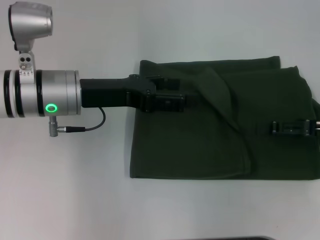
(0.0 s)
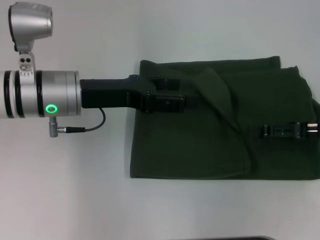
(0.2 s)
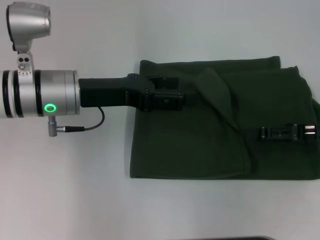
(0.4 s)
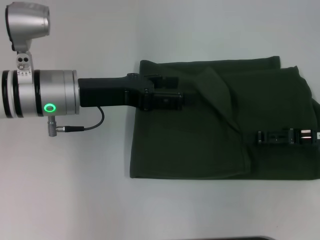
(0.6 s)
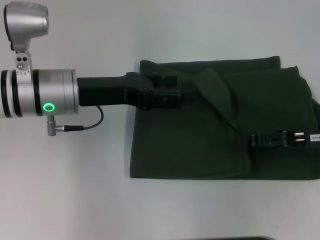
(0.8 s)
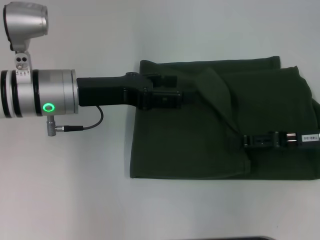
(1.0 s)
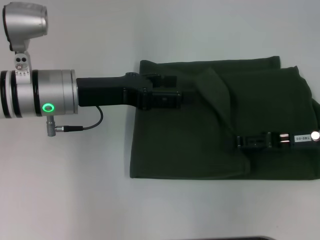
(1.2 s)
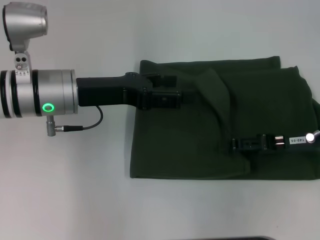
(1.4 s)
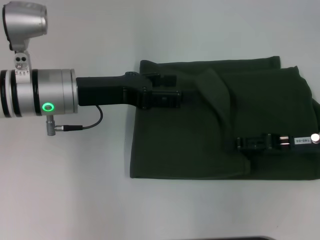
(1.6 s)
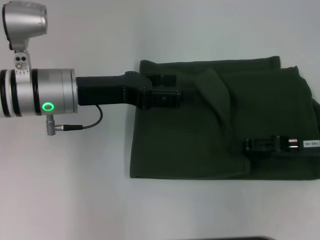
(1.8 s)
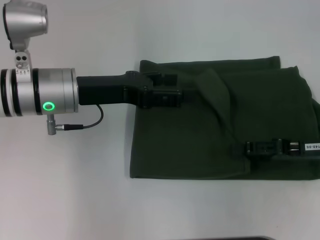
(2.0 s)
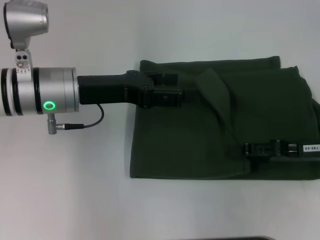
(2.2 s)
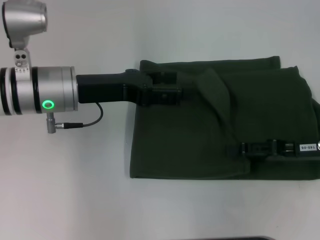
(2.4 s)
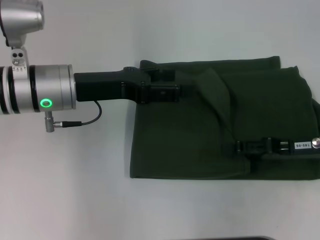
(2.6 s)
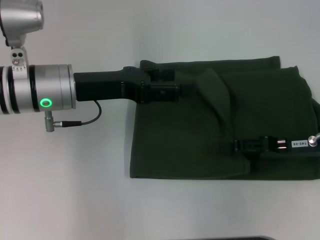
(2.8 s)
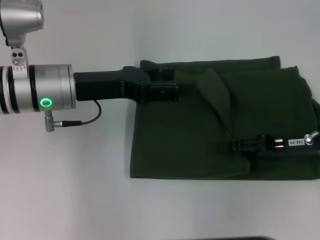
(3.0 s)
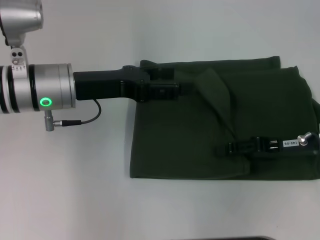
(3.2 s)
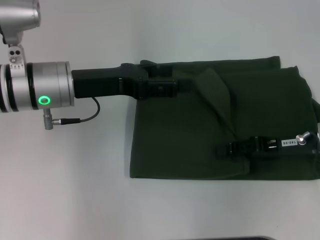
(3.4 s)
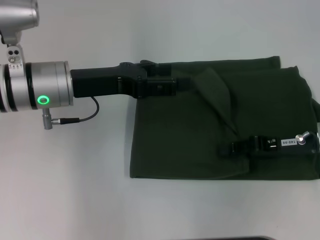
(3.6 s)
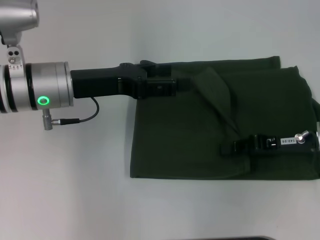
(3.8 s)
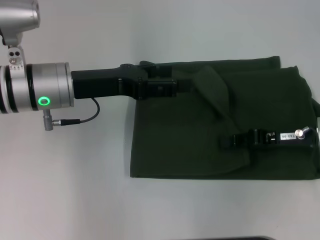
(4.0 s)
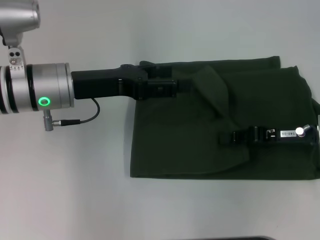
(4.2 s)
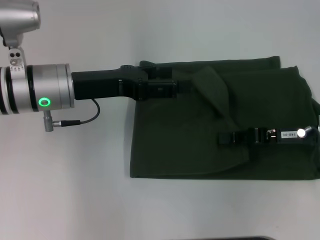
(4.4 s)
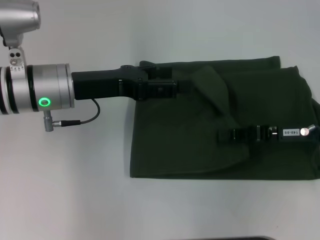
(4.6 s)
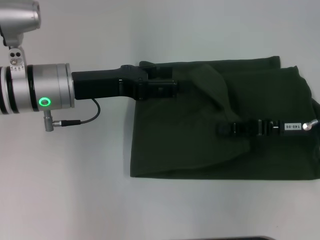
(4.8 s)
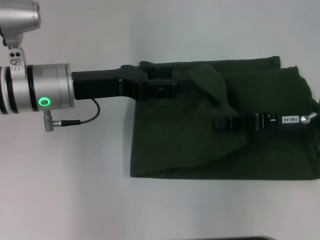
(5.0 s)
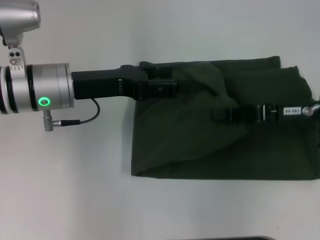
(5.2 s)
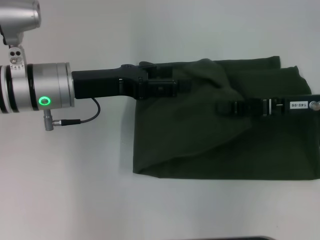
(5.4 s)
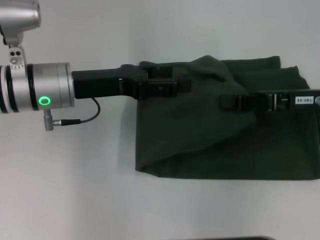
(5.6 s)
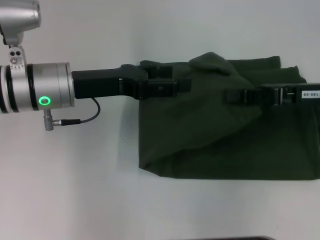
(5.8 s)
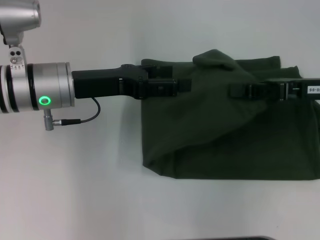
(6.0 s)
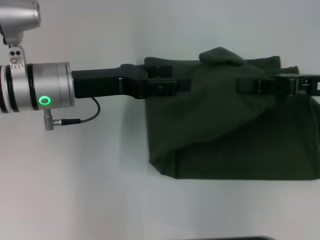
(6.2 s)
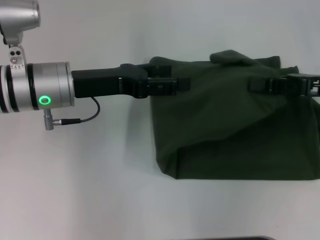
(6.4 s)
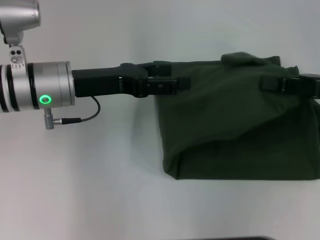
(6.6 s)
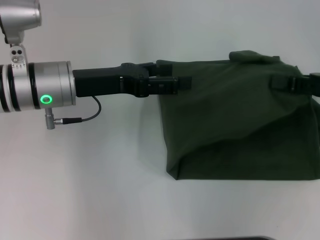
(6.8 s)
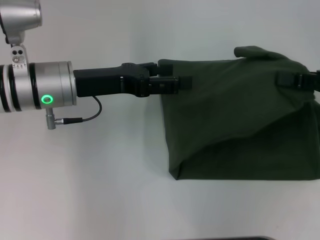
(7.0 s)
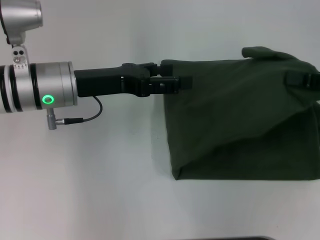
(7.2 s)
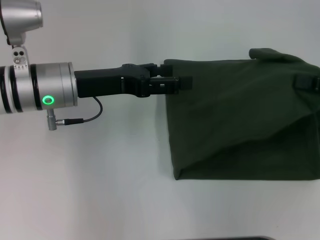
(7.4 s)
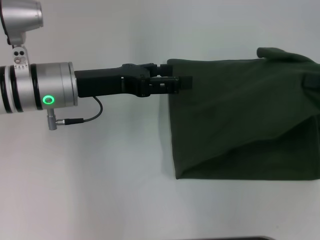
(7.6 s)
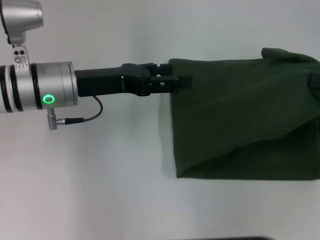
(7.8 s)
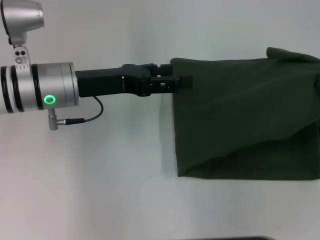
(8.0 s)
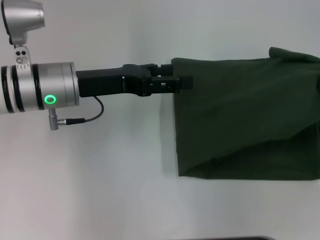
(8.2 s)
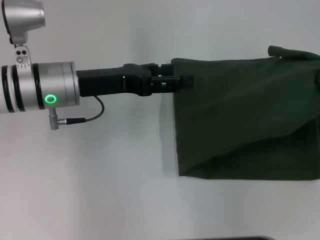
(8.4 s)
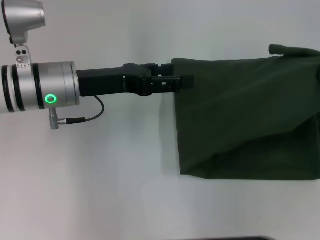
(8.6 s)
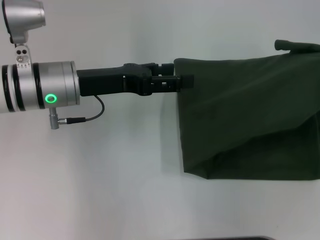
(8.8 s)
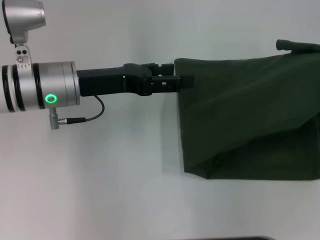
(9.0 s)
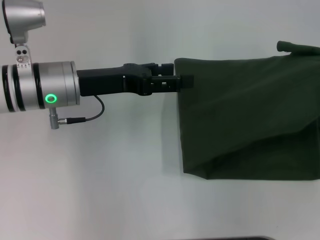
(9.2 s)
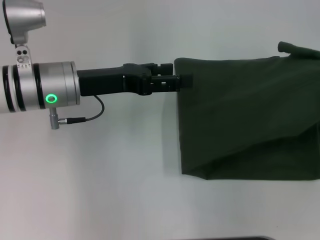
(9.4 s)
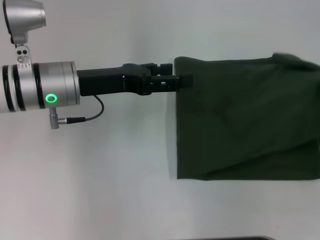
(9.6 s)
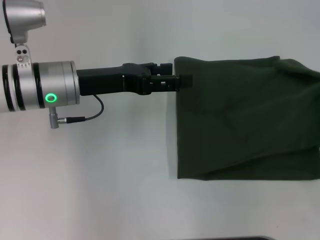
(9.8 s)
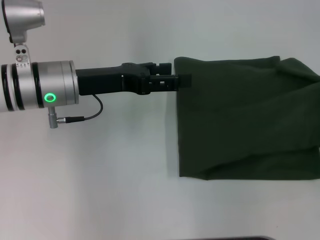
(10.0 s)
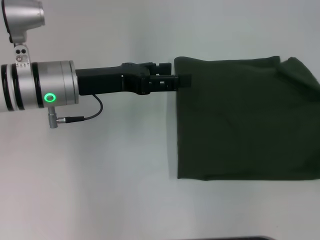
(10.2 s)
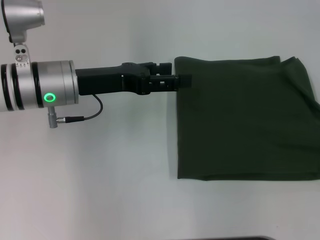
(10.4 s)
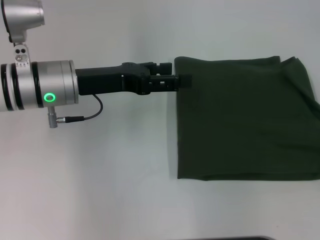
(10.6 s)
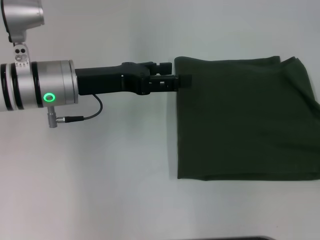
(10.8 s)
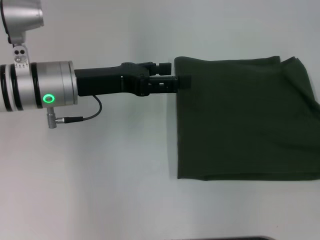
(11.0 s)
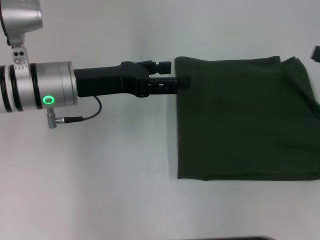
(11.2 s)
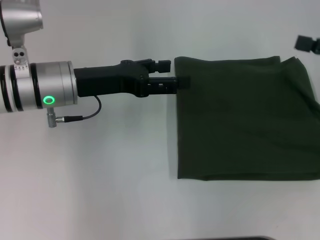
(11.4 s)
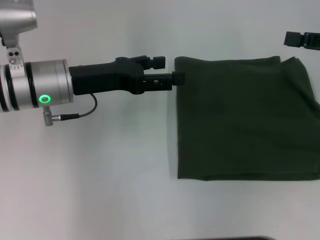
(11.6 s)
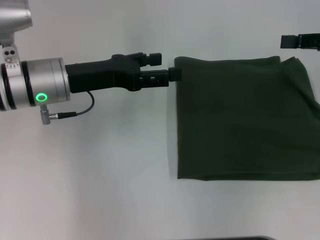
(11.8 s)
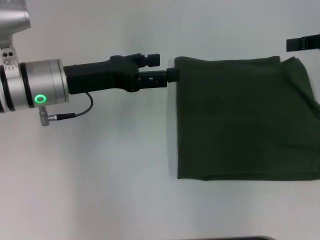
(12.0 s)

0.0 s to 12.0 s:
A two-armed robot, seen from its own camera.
0.0 to 1.6 s: The grippers stay close to where they were, moving slightly.
1.6 to 3.0 s: The two grippers keep their place.
3.0 to 4.4 s: The right gripper closes up.
4.4 to 6.0 s: The right gripper is displaced upward by about 5 cm.
6.0 to 7.6 s: The right gripper shifts roughly 10 cm to the right.
7.6 to 9.0 s: The grippers stay close to where they were, moving slightly.
9.0 to 10.4 s: The right gripper changes place by roughly 5 cm, and opens up.
10.4 to 12.0 s: The right gripper travels forward, to the left and upward by about 15 cm, and closes its fingers.

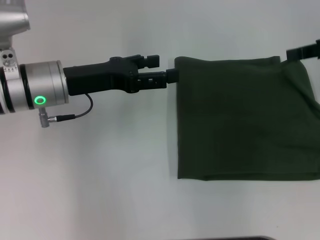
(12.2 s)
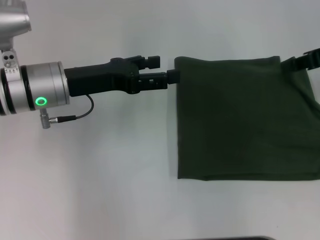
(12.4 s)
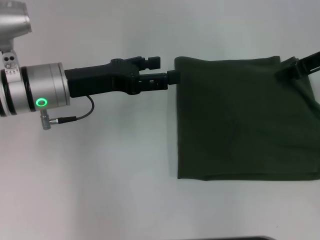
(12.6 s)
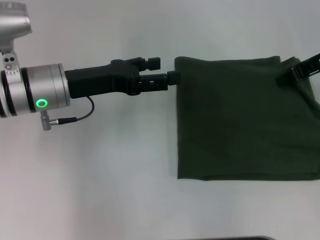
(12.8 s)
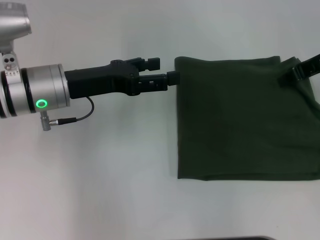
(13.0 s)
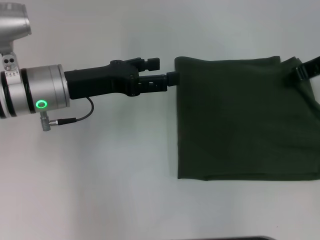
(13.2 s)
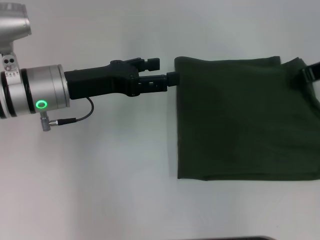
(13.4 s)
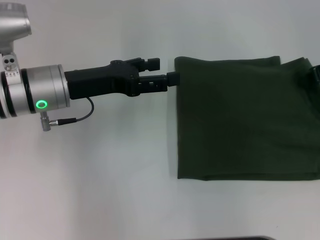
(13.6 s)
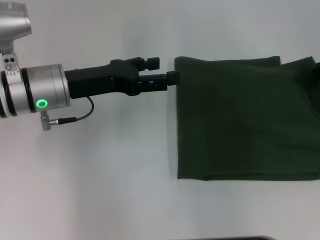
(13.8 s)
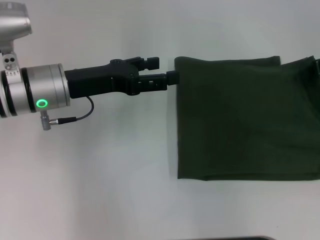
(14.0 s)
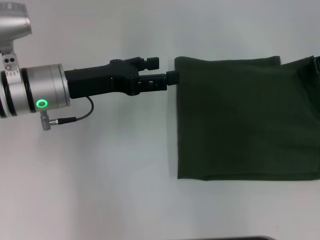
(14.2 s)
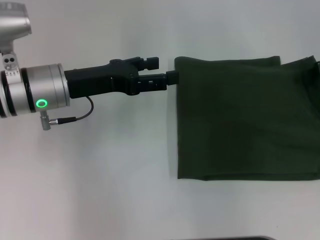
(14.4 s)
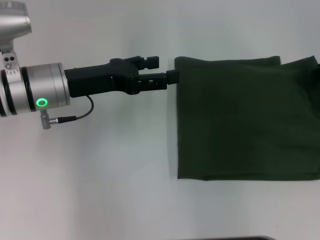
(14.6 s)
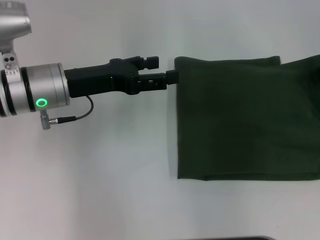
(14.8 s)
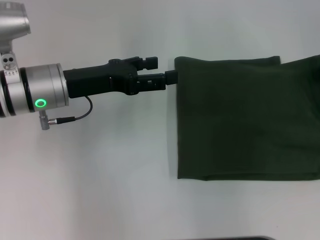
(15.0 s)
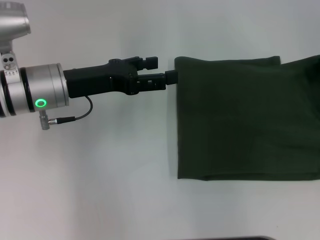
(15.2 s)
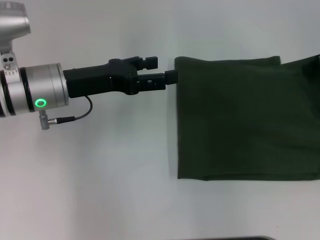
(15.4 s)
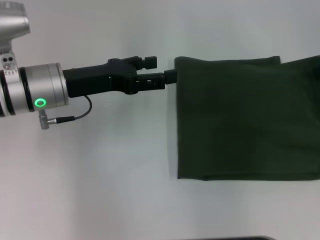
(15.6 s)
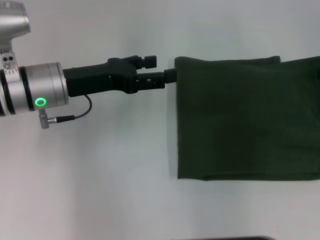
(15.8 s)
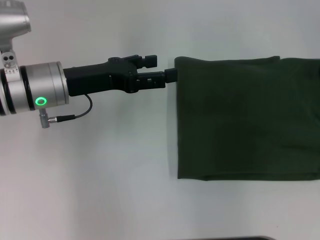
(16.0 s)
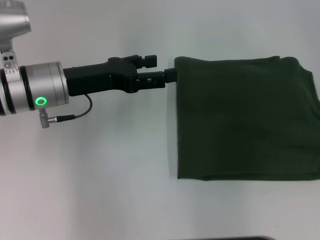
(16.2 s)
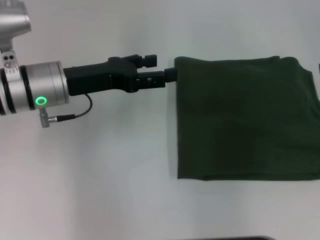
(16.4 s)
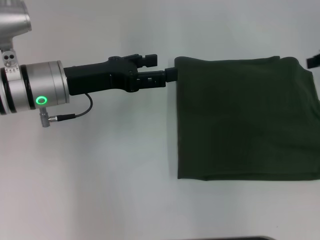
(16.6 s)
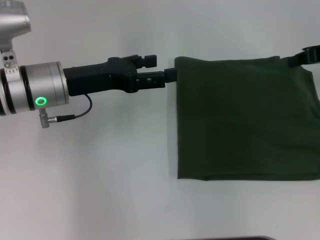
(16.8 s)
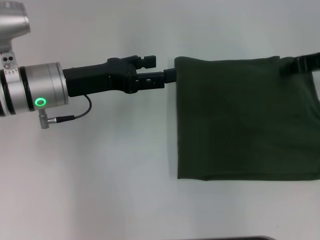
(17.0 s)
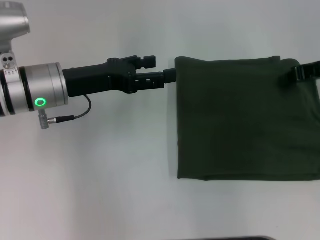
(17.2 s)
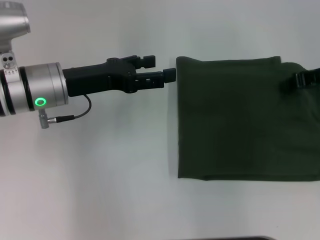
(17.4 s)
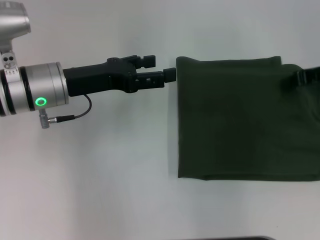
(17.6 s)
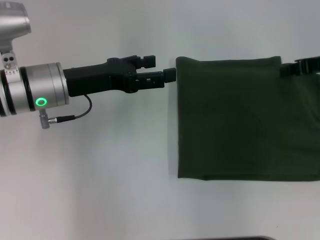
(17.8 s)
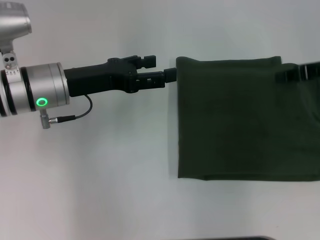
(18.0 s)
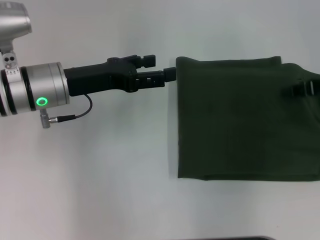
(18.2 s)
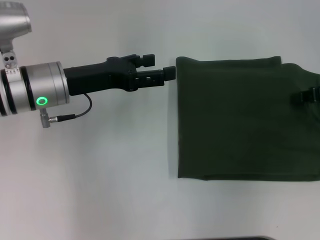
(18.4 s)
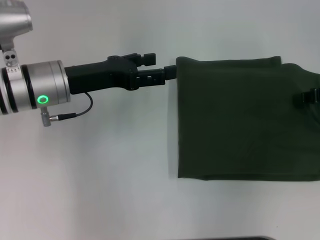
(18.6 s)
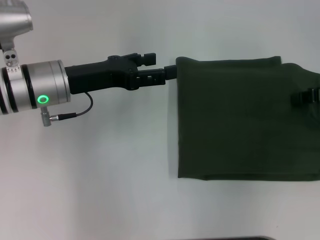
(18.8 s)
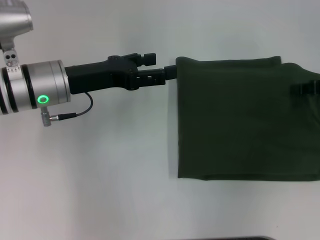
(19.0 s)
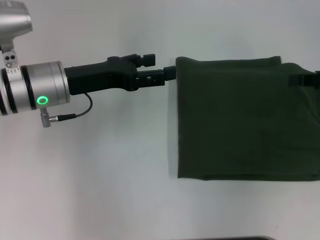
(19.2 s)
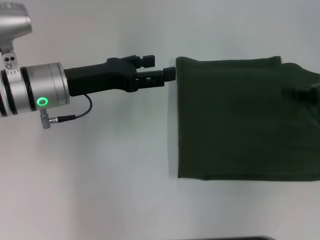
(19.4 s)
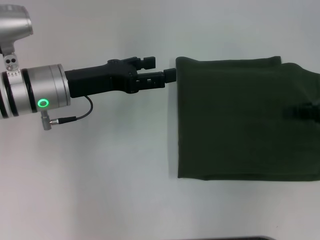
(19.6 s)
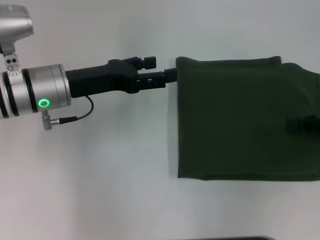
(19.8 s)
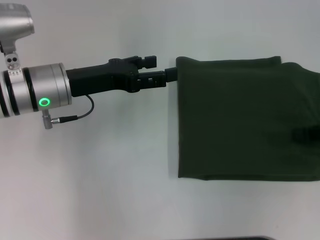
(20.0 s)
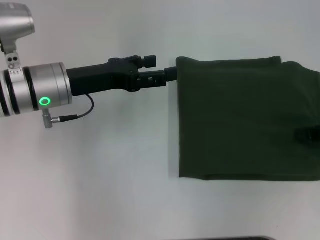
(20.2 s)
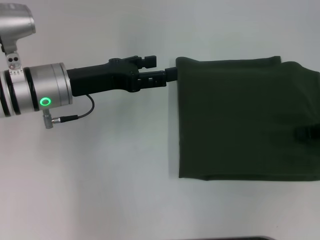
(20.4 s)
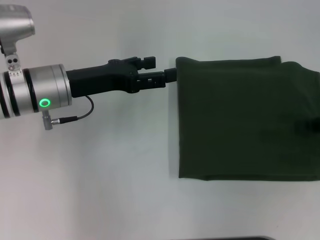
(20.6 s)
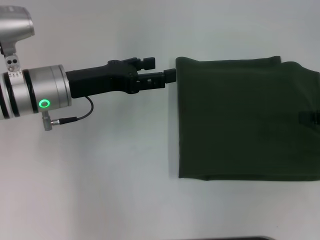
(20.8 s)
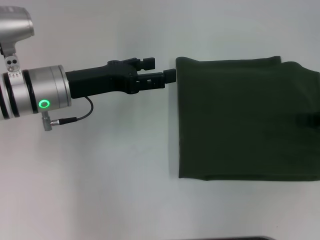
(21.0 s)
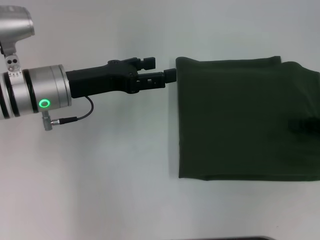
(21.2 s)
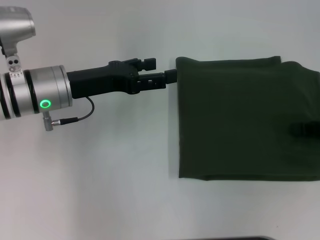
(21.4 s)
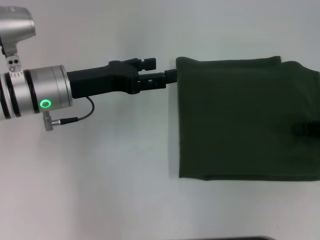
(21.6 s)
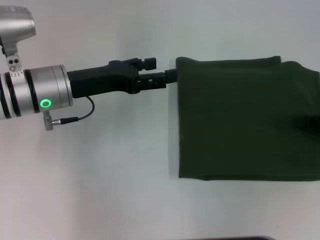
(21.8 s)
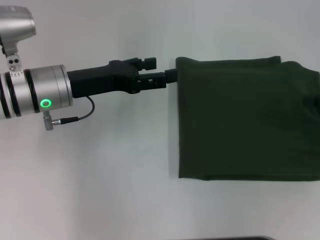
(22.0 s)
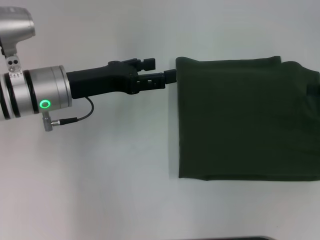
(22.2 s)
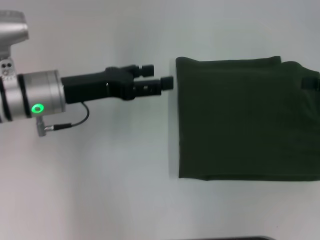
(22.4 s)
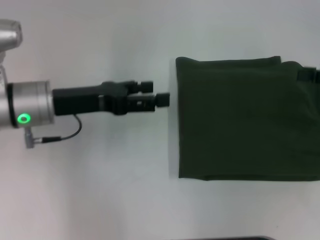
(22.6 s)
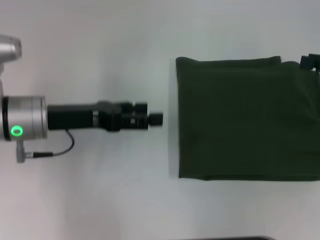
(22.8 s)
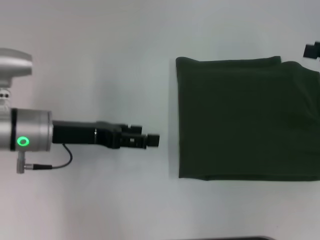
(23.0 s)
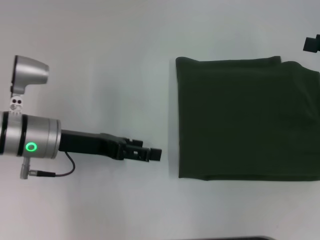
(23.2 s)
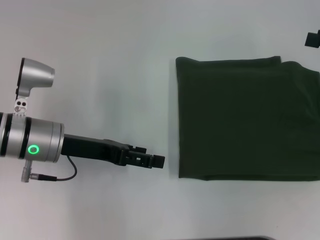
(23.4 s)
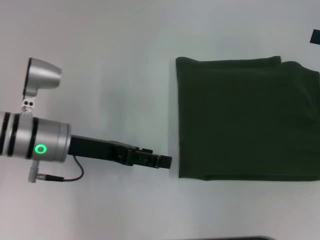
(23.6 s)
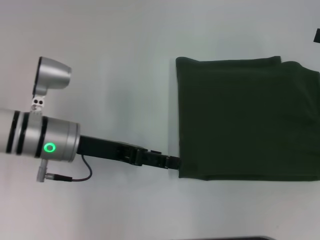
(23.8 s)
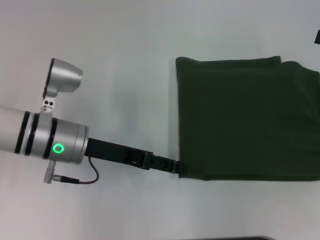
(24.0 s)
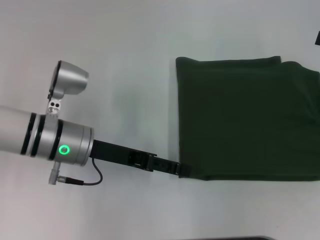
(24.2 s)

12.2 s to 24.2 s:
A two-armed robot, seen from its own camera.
13.8 to 16.6 s: There are only small adjustments of the grippers.
16.6 to 18.2 s: The right gripper shifts by some 5 cm.
18.2 to 19.8 s: The right gripper changes place by roughly 5 cm.
19.8 to 22.6 s: There are only small adjustments of the grippers.
22.6 to 24.2 s: The right gripper opens its fingers. The left gripper ends up approximately 5 cm from where it was.
